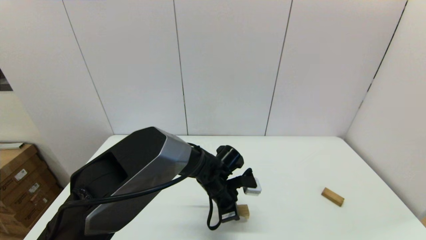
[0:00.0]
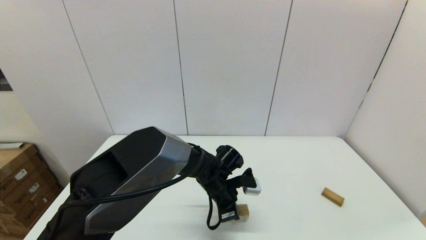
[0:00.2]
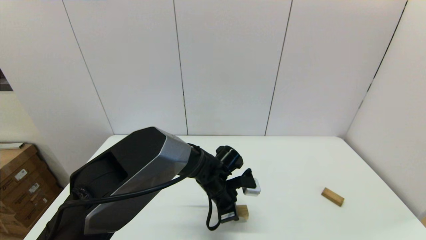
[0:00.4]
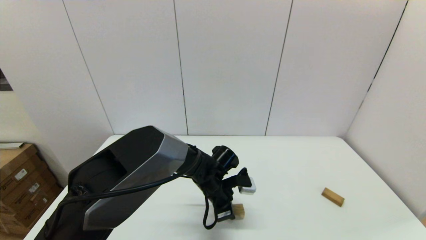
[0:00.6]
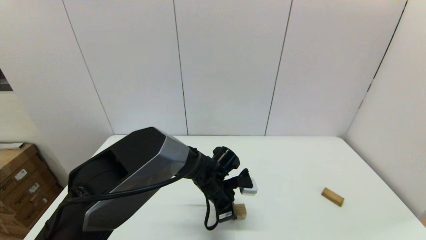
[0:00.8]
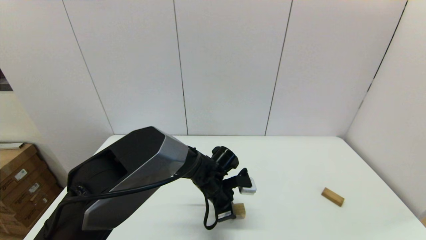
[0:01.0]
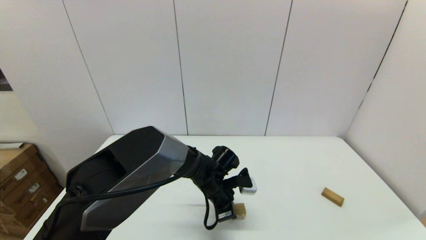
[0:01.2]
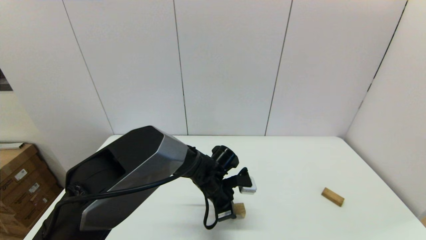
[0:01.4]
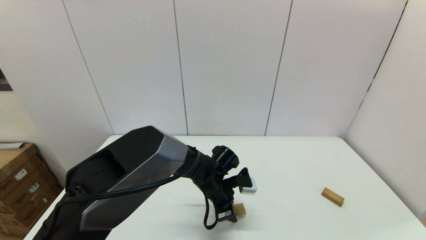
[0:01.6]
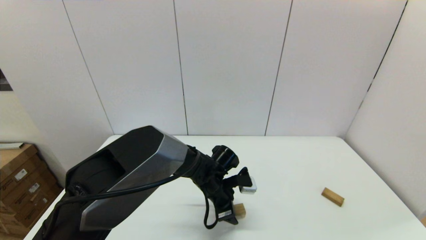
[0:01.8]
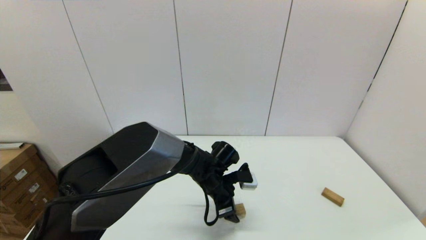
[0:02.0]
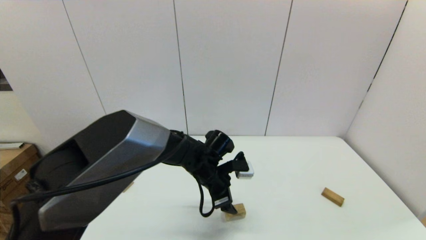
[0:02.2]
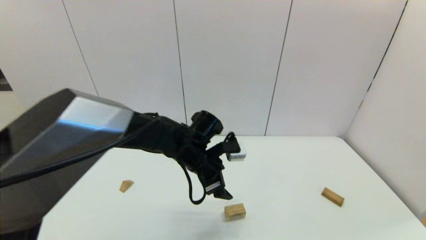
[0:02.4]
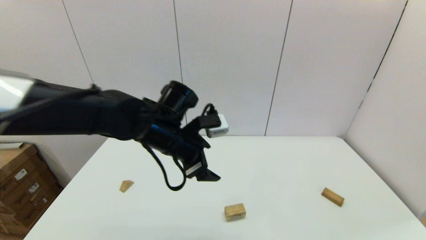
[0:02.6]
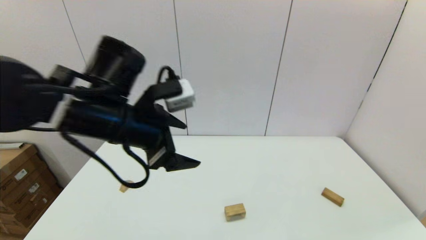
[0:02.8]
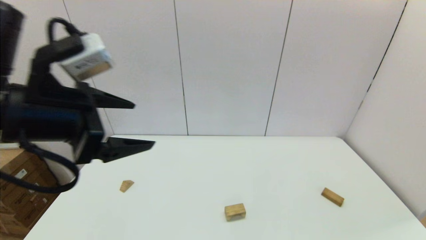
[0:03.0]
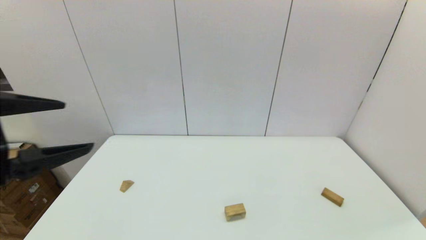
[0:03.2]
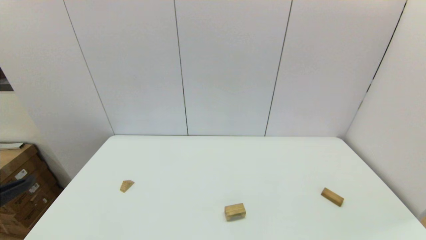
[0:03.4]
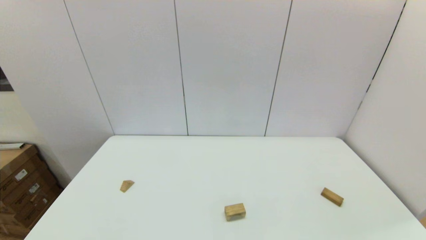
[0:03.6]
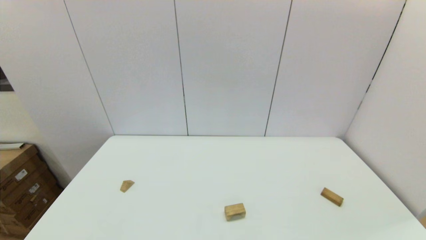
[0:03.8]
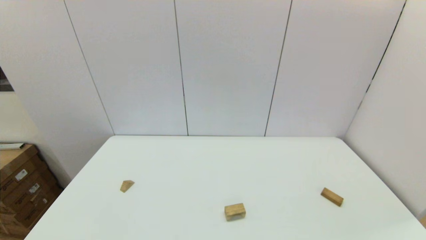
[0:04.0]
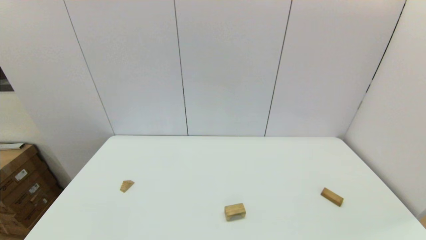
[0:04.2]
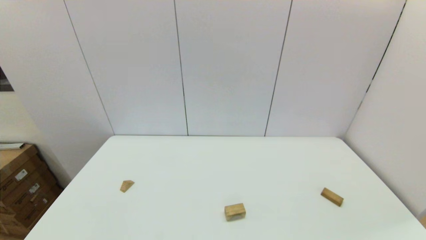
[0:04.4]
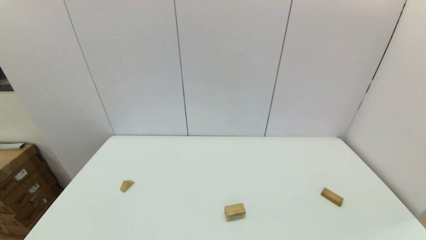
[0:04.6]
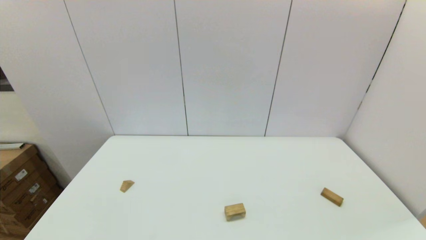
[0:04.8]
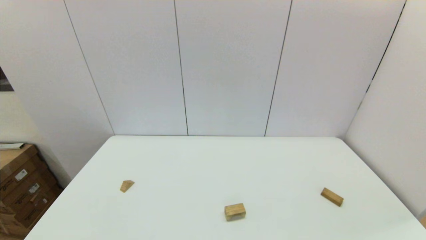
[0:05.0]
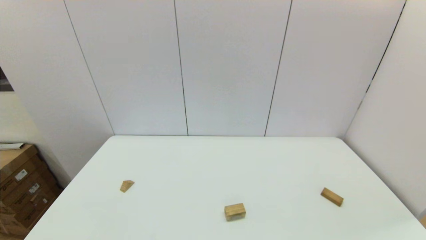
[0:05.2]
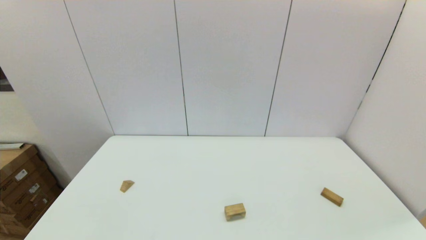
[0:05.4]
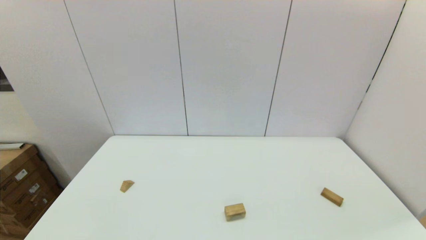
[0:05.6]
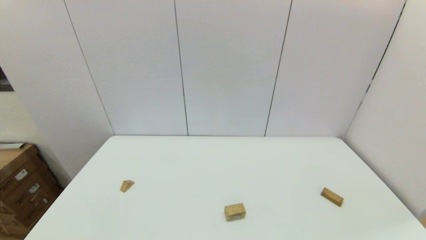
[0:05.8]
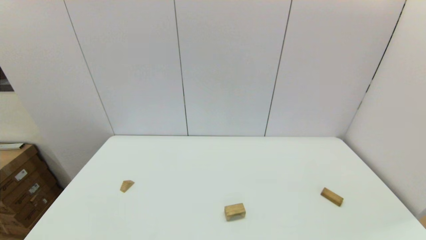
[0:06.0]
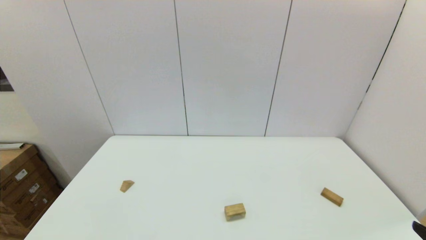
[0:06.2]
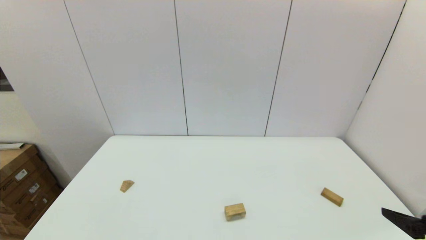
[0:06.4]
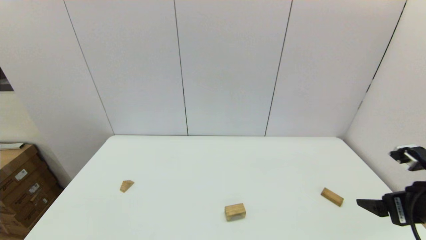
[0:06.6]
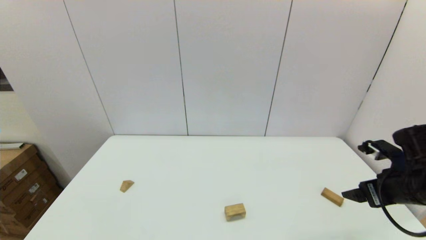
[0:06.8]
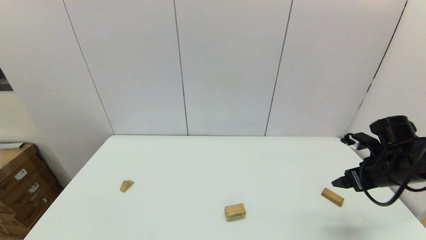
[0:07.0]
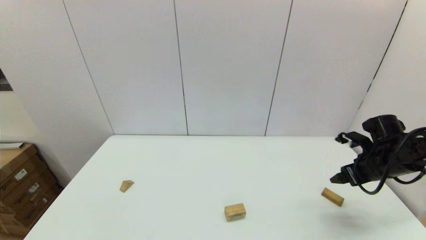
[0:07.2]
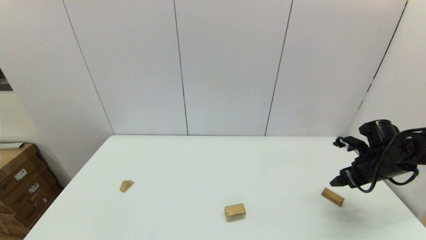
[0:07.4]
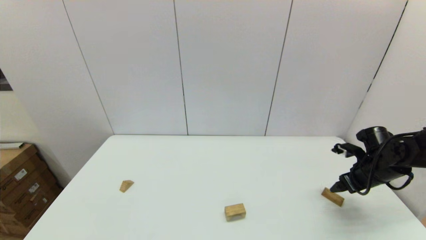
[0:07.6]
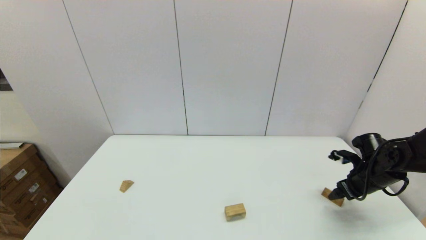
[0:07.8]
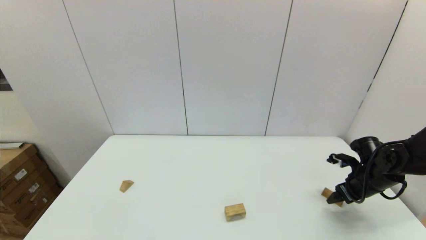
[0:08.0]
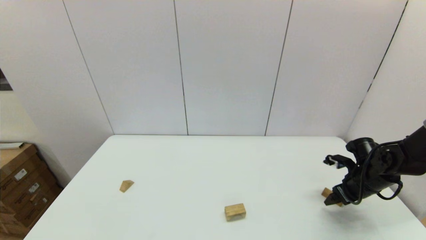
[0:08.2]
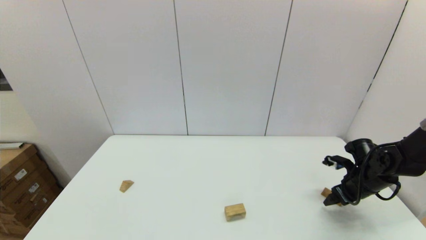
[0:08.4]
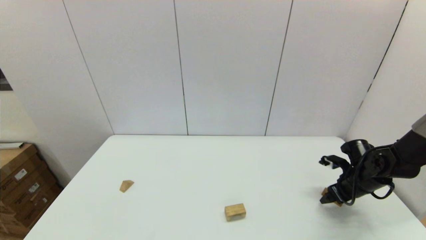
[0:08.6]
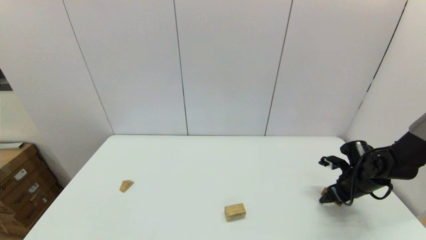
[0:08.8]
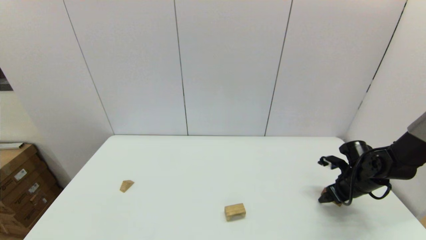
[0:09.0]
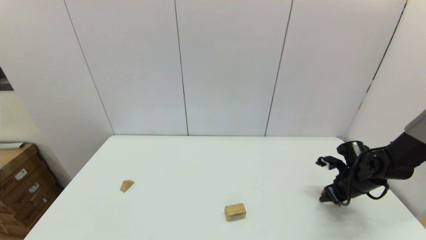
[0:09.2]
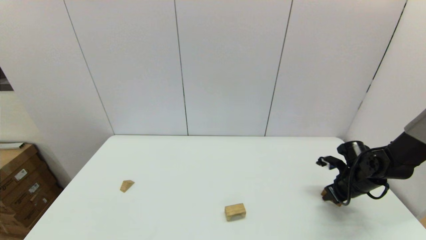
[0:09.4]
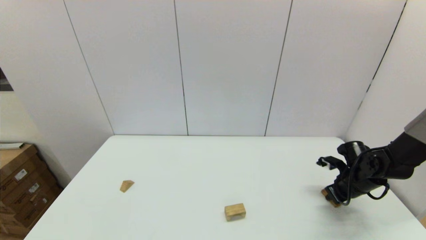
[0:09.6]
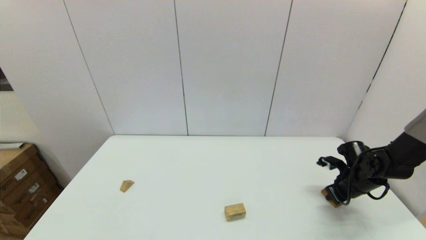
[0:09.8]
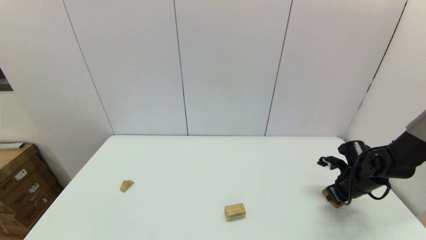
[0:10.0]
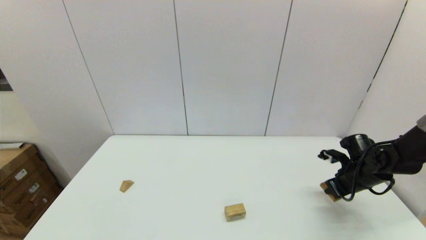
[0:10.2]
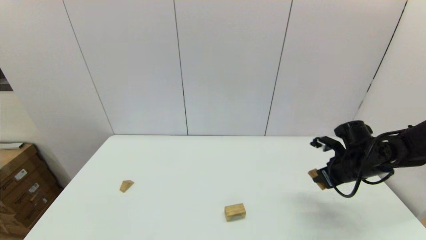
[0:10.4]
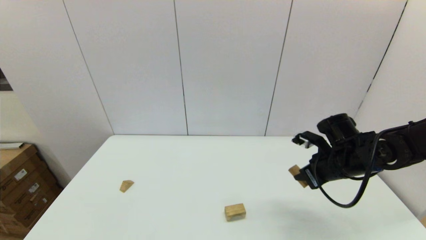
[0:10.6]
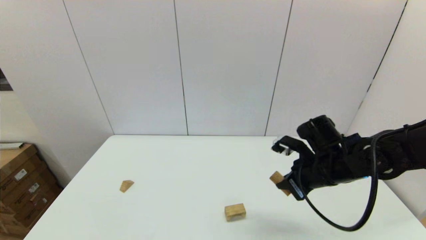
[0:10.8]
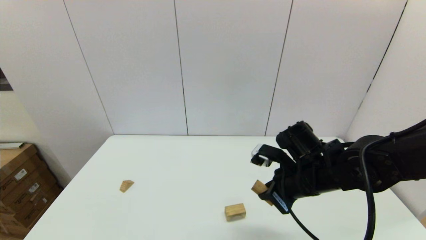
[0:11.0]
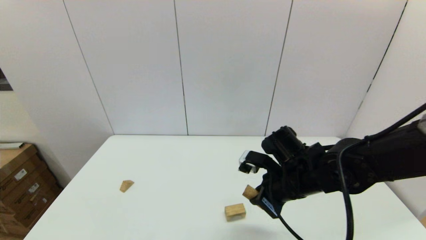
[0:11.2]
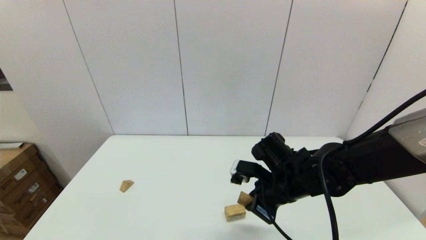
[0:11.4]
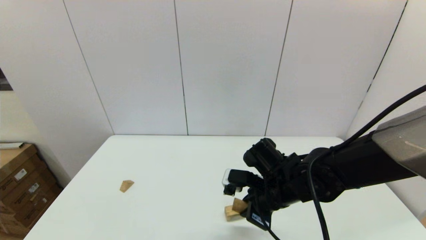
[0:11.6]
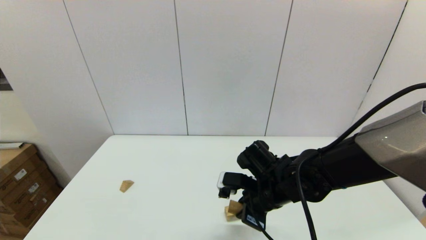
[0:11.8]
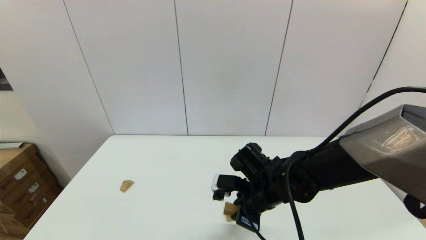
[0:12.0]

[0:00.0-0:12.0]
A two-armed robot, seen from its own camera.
Task of the whole recording: place the arched building blocks in the center of the table, set up the rectangular building blocks, and then set up the triangular building blocks.
Step, 0:01.6 to 0:09.4: Grasp the box-shaped block with the right gripper.
0:00.0 to 0:01.6: Both grippers stay about where they are.
0:01.6 to 0:03.0: The left gripper goes about 40 cm upward, to the left and backward, and opens.
0:03.0 to 0:04.4: The left gripper travels downward, backward and to the left by about 30 cm.
0:06.0 to 0:07.6: The right gripper travels forward by some 35 cm.
0:07.6 to 0:09.0: The right gripper heads downward, covering some 5 cm.
0:09.0 to 0:10.4: The right gripper travels upward by roughly 5 cm, and closes.
0:10.4 to 0:12.0: The right gripper shifts roughly 25 cm to the left.

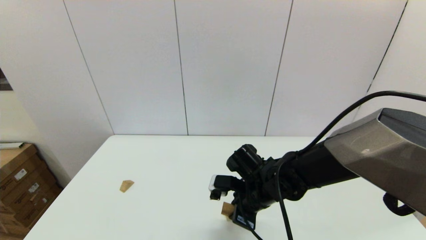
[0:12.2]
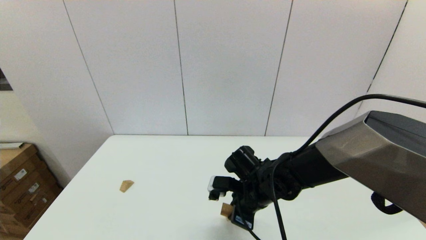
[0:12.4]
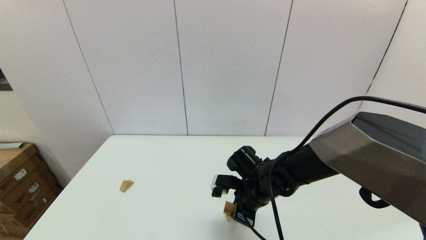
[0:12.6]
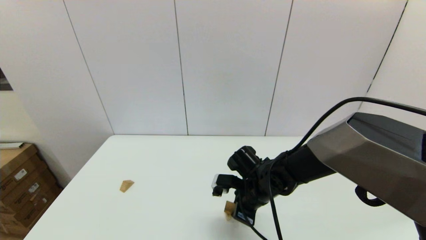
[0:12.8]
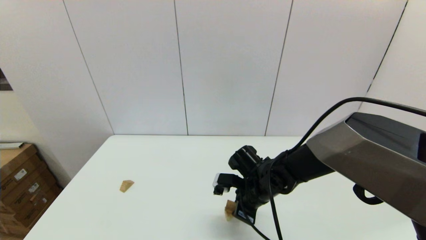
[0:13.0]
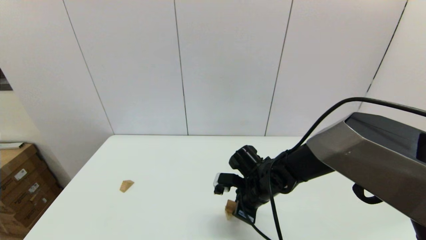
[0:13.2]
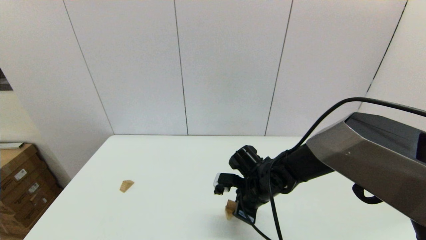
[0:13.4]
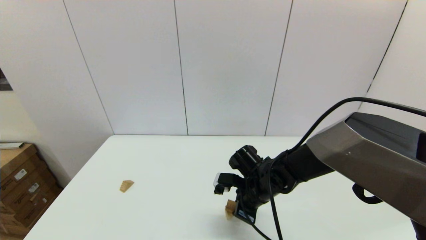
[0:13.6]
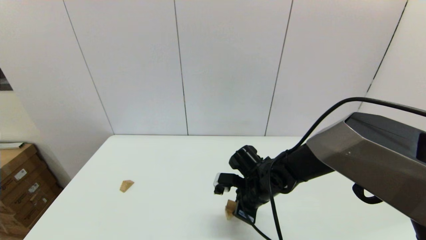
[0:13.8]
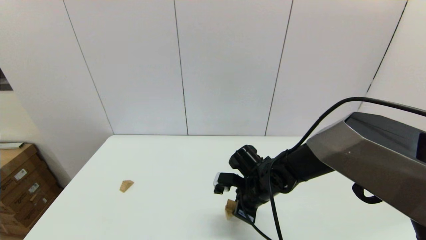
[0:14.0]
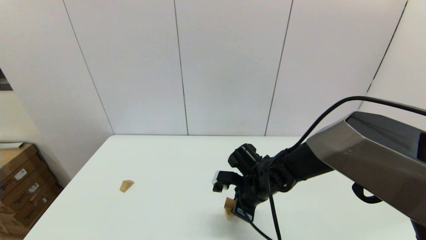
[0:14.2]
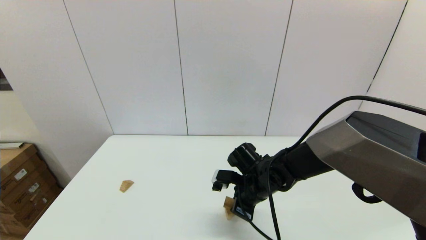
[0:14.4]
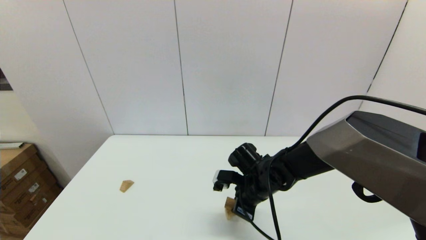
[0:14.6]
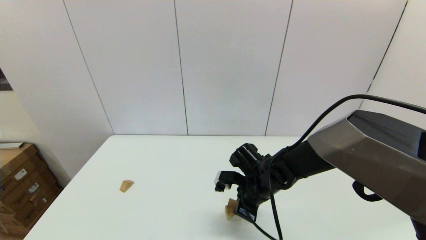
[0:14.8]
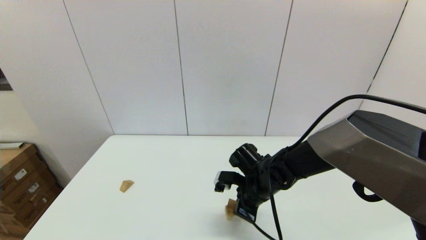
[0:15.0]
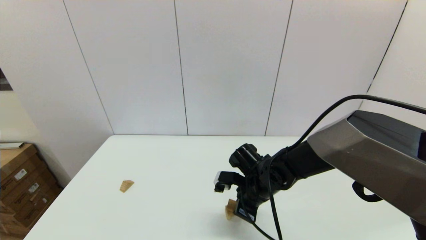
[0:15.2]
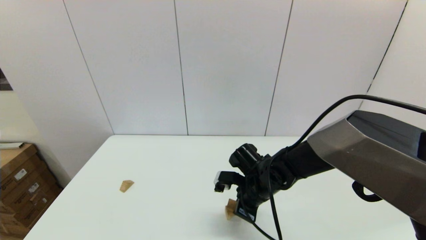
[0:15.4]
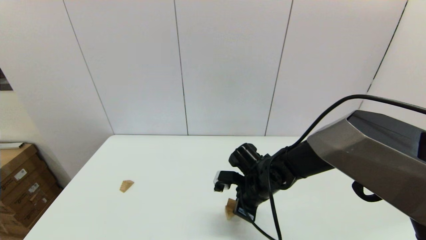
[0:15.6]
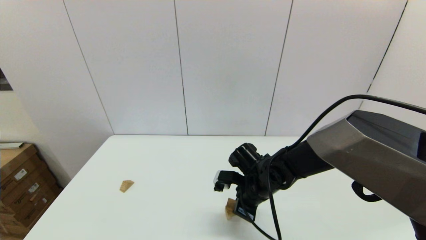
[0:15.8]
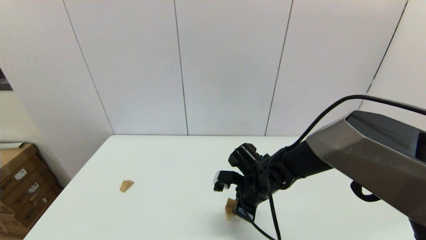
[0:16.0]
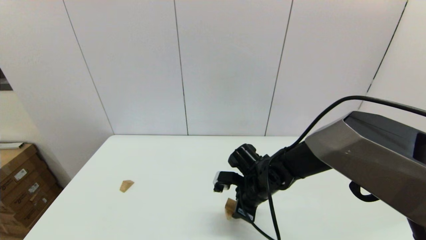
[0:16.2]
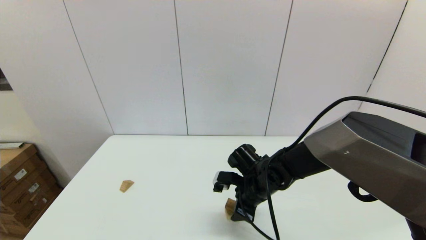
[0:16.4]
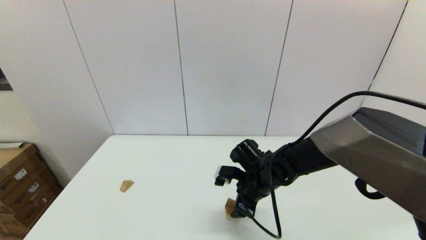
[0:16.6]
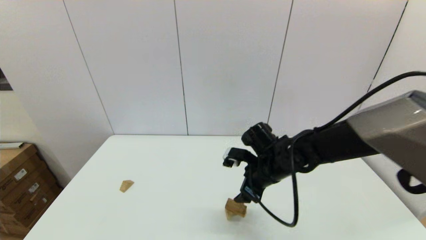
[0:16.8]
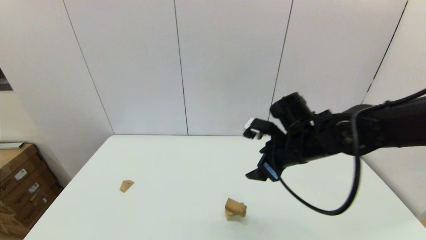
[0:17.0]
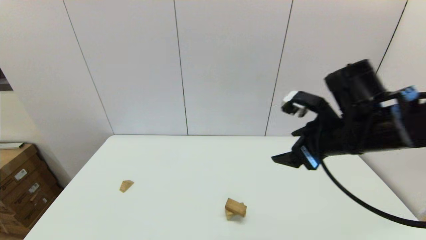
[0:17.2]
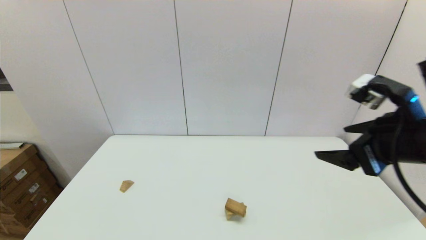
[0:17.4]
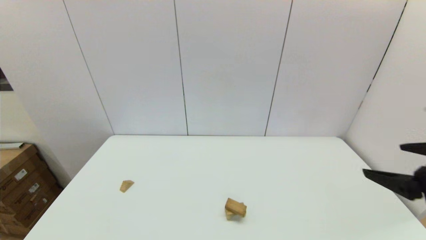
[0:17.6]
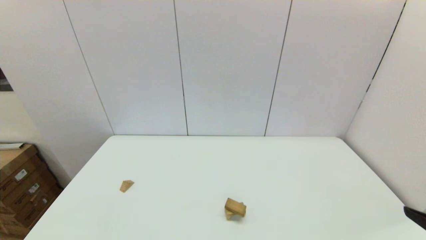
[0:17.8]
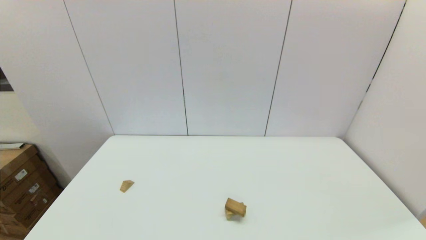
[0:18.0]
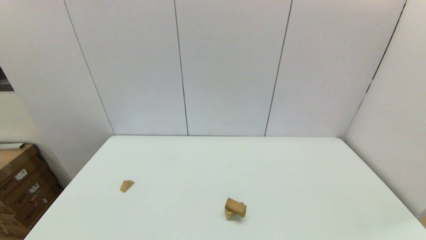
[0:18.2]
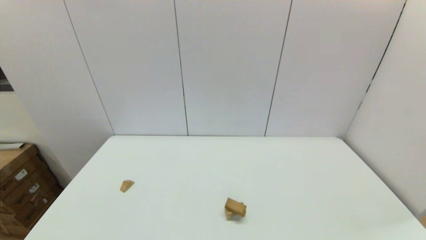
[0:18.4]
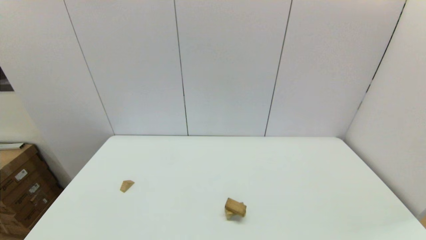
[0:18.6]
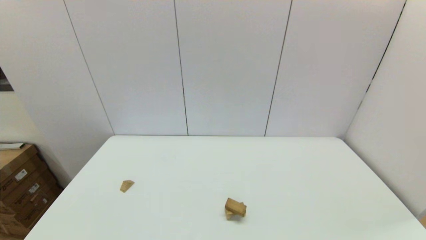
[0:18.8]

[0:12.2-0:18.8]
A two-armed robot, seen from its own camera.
Task of the whole recording: place the arched building blocks in the center of the table, set up the rectangular building blocks, and then set up the triangular building blocks.
Step, 0:12.2 to 0:16.2: Place the box-shaped block onto the arch-shaped block with the right gripper.
0:12.2 to 0:13.8: The grippers move only a little.
0:13.8 to 0:15.4: Both grippers stay about where they are.
0:15.4 to 0:17.2: The right gripper shifts roughly 25 cm upward and to the right, and opens.
0:17.2 to 0:18.8: The right gripper goes roughly 30 cm backward, downward and to the right.
